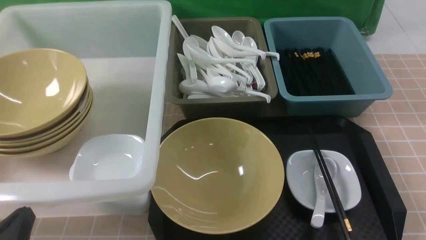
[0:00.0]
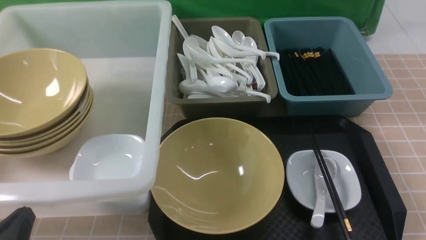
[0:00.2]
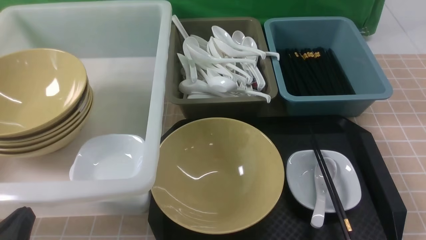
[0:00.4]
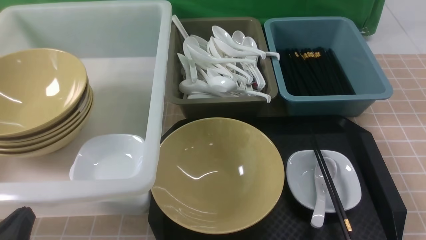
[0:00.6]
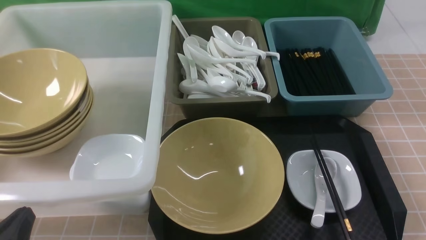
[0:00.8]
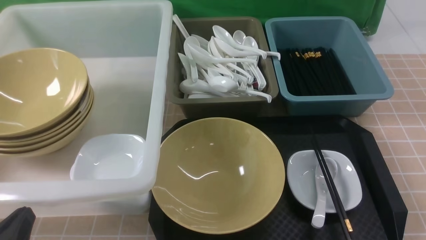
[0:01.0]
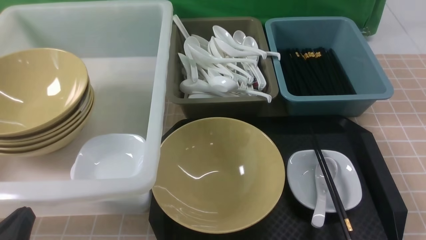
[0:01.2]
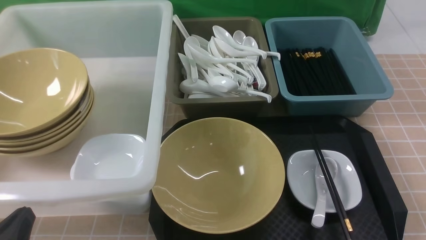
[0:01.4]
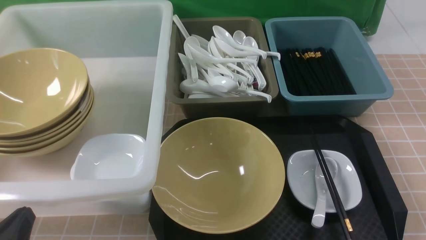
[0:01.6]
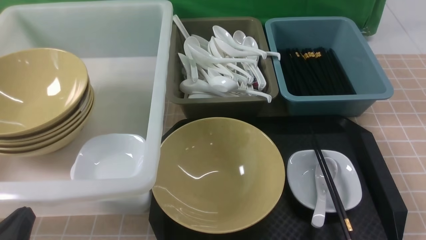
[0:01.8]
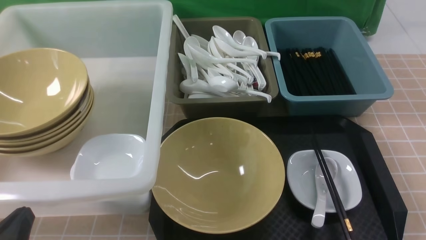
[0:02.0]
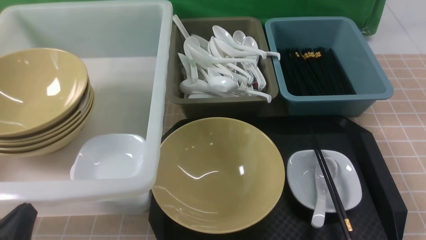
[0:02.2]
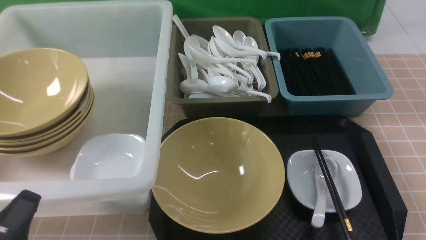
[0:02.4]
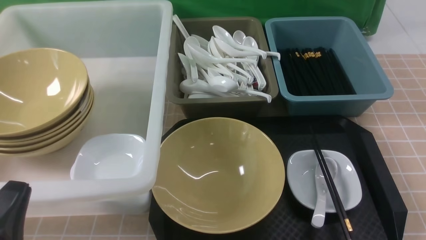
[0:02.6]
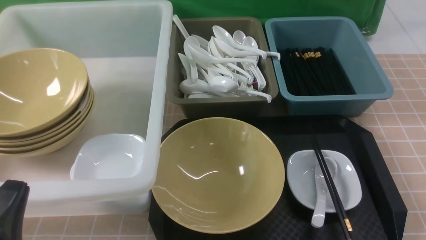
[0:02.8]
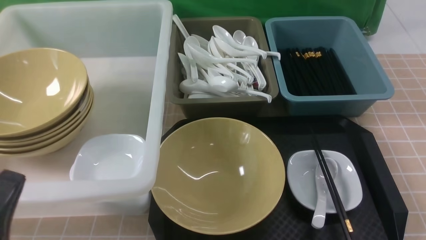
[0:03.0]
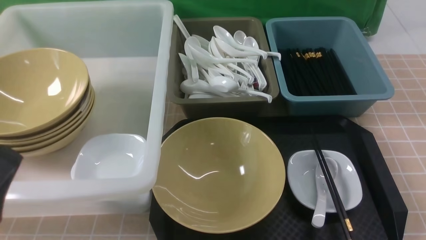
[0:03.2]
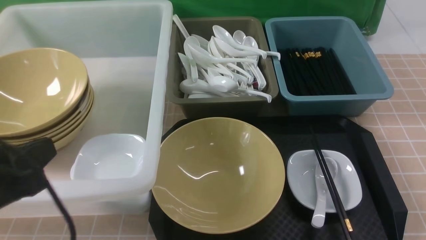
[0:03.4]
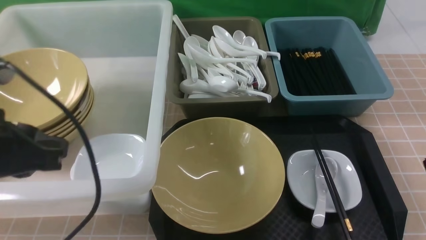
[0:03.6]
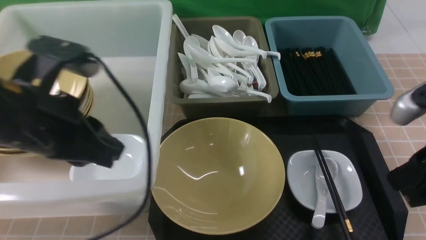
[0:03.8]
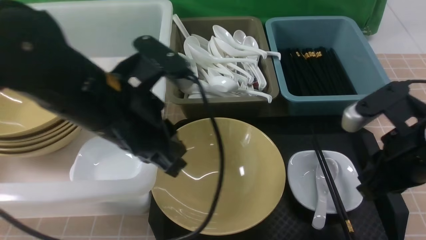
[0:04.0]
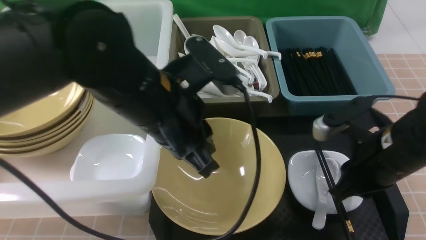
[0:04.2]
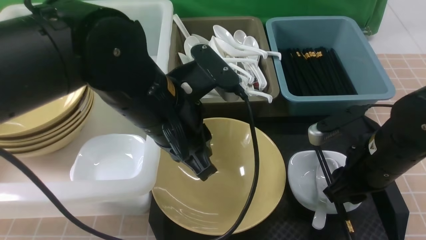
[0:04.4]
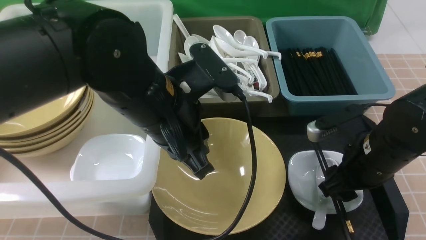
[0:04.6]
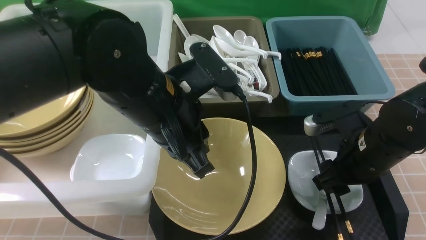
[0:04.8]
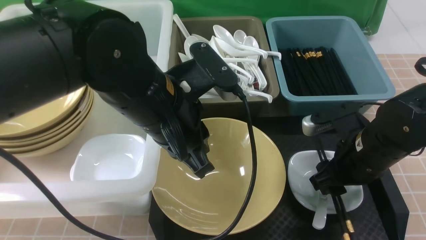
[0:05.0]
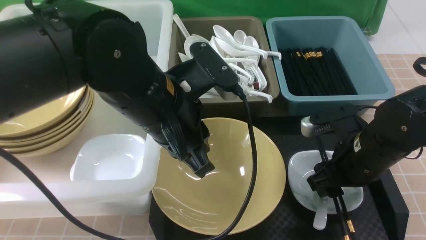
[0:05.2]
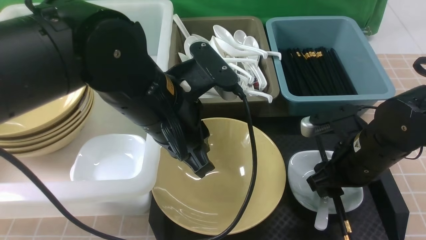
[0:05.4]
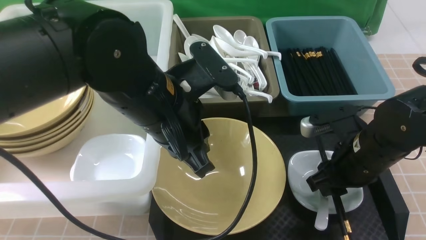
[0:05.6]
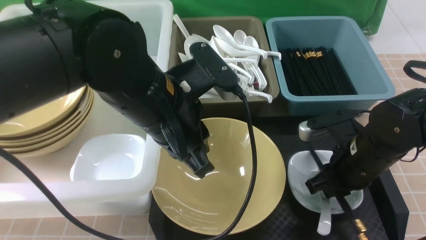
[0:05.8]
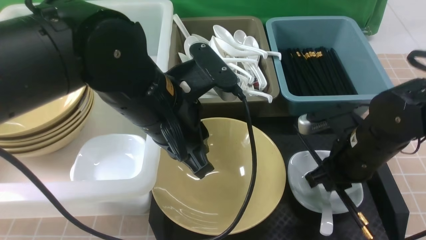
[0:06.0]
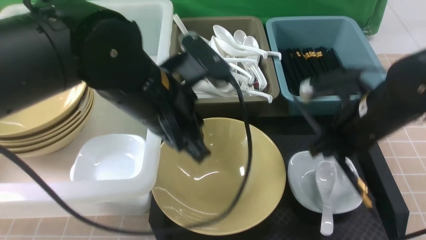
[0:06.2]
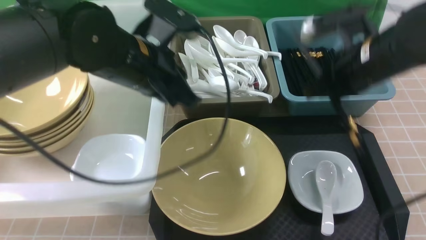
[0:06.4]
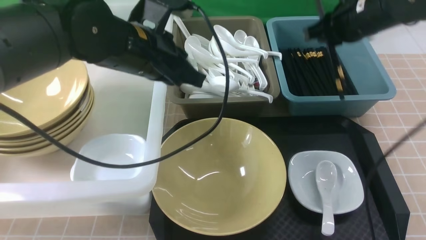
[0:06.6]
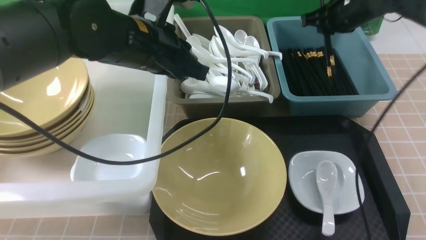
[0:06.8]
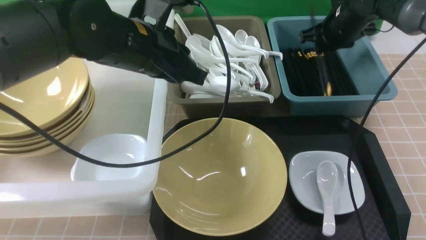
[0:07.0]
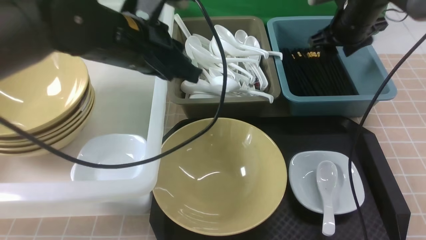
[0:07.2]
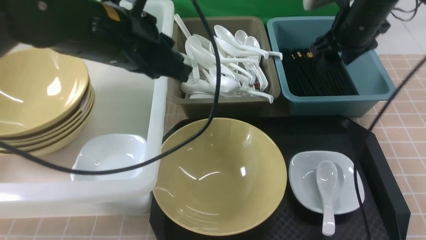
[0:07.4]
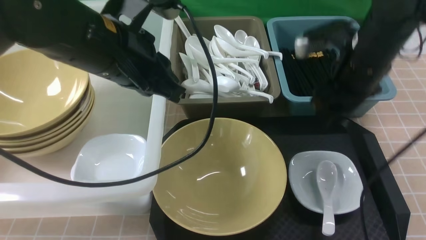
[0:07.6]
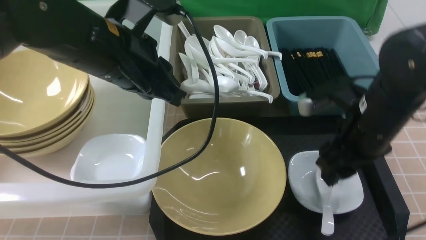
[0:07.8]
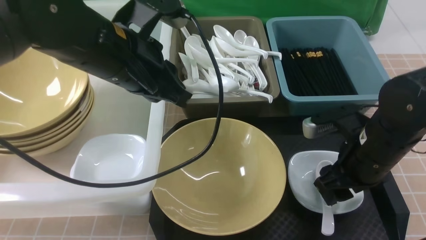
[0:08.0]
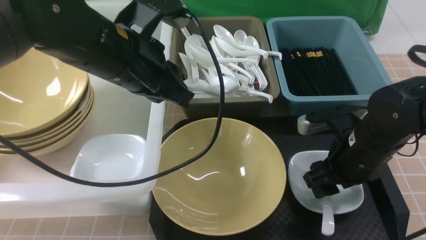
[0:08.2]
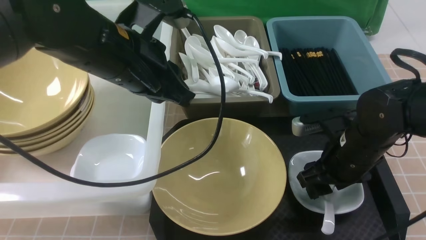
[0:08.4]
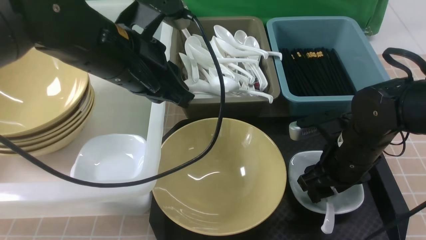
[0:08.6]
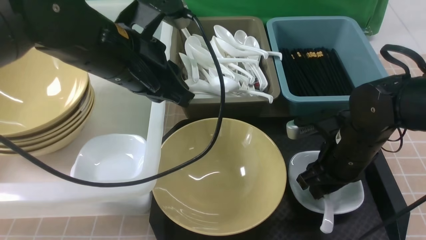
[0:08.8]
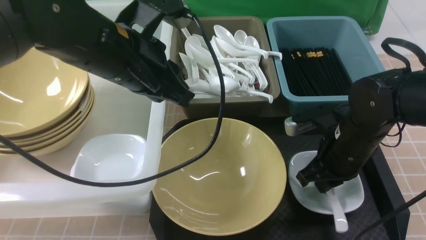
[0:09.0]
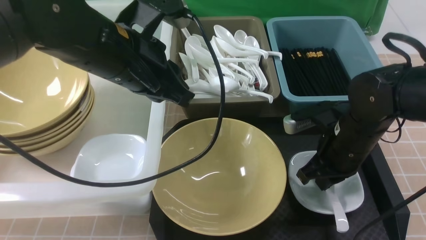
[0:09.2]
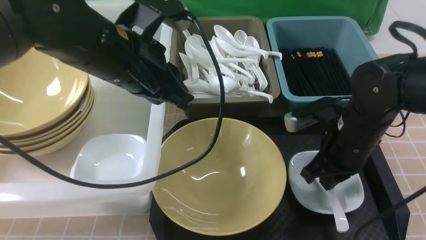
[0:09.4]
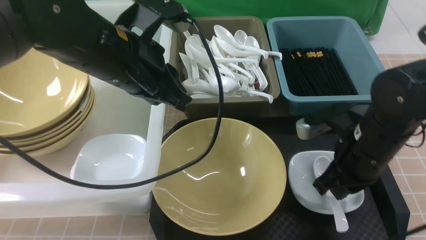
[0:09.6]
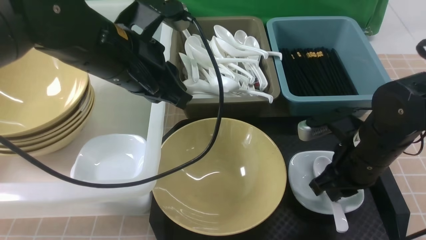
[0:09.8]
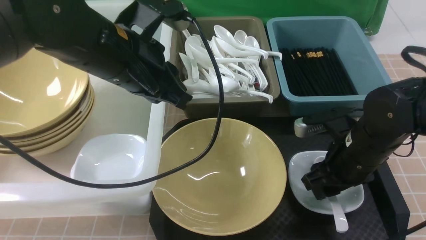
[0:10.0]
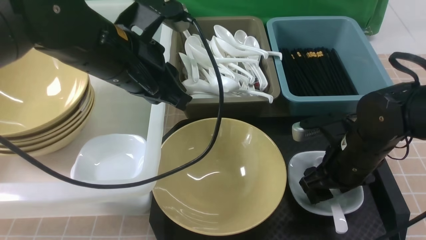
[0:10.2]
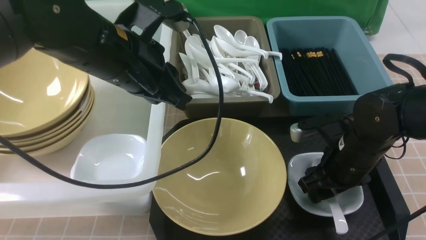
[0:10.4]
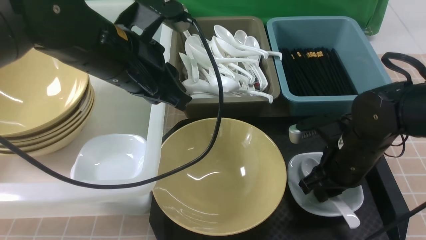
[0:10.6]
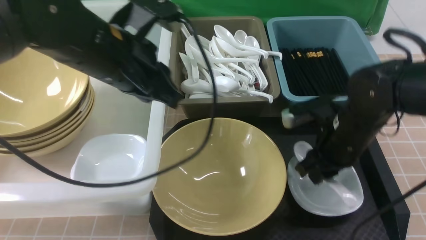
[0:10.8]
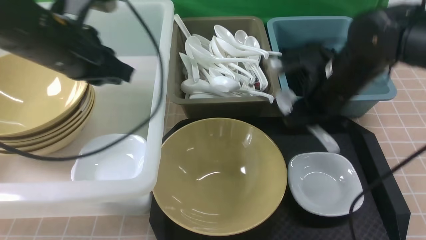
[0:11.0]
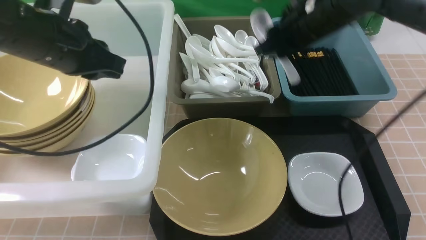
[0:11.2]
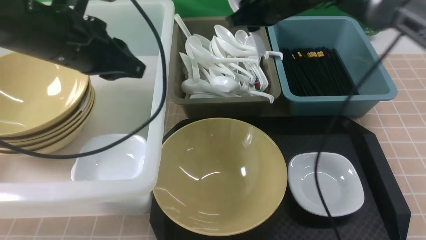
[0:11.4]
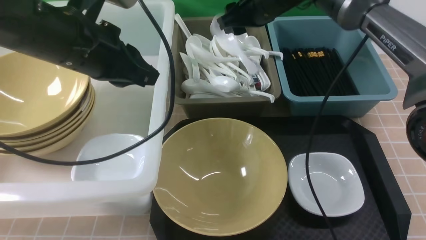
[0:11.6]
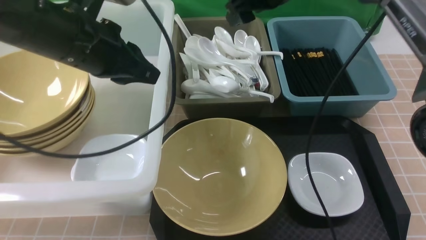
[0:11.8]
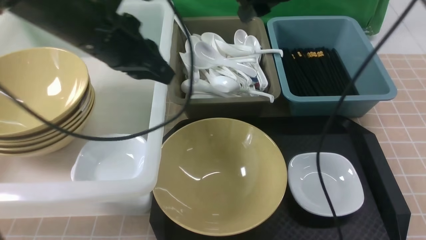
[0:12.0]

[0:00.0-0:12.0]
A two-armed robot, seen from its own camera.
Task of the whole recording: on brown table put chopsticks spoon bowls plates into blue grey white boxes.
Step, 0:00.0 to 0:06.4: use the right arm to grab the chopsticks.
Step, 0:06.6 to 0:07.4: use the right arm to put the chopsticks into the small storage box on the right.
Step, 0:07.6 to 0:10.8: use the right arm to grab the soup spoon in the middle.
Step, 0:11.0 to 0:11.8: use the right arm to put the soup spoon into the small storage box in the middle.
0:00.0 to 0:01.6: Both grippers stay about where they are.
0:01.6 to 0:03.0: The left gripper goes about 5 cm upward.
0:03.0 to 0:04.4: The right gripper goes some 20 cm forward and to the left; the left gripper is displaced forward and to the right by roughly 25 cm.
0:04.4 to 0:06.0: The right gripper closes.
0:06.0 to 0:07.6: The right gripper travels upward by approximately 5 cm, goes forward and returns, about 20 cm each way, and opens its fingers. The left gripper moves approximately 5 cm.
0:07.6 to 0:09.0: The right gripper travels downward and backward by roughly 10 cm, and closes up.
0:09.0 to 0:10.4: The right gripper opens up.
0:10.4 to 0:12.0: The right gripper heads upward and forward, covering approximately 25 cm, and closes, then reopens; the left gripper goes to the left and returns, roughly 10 cm each way.

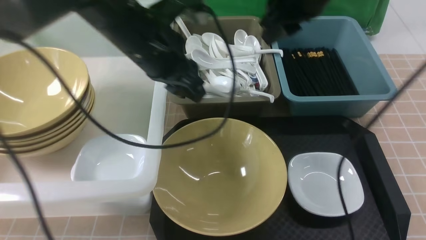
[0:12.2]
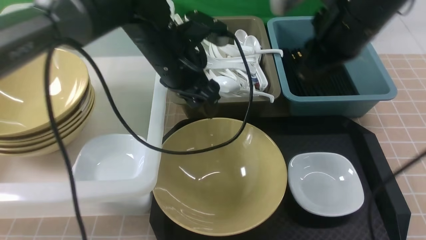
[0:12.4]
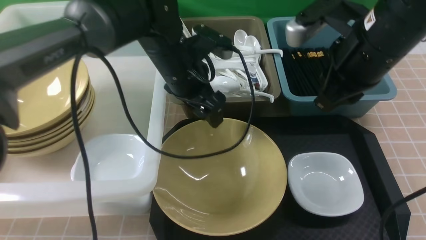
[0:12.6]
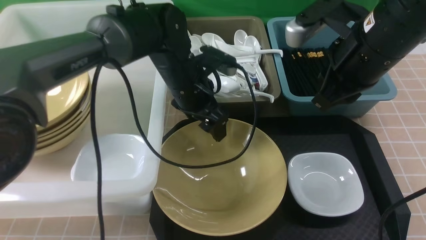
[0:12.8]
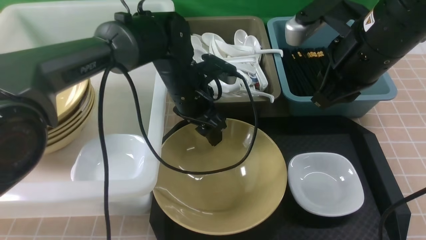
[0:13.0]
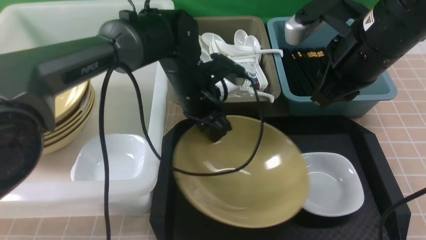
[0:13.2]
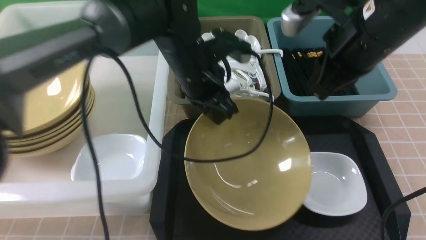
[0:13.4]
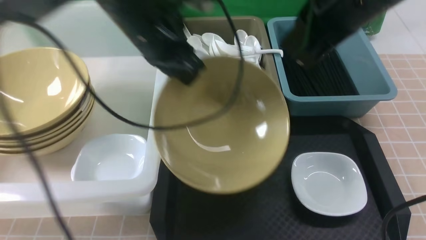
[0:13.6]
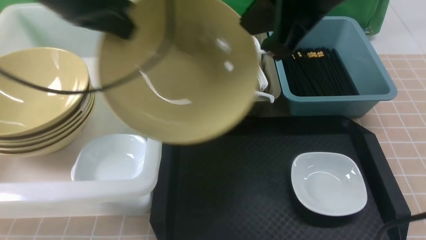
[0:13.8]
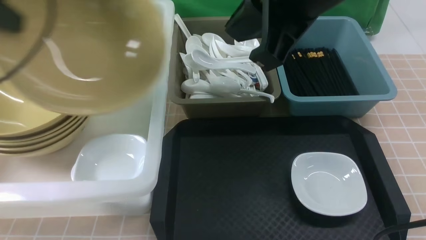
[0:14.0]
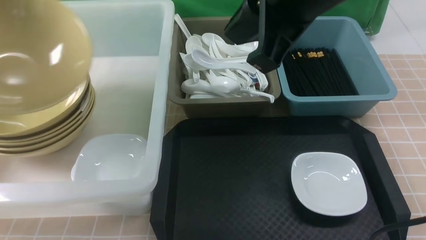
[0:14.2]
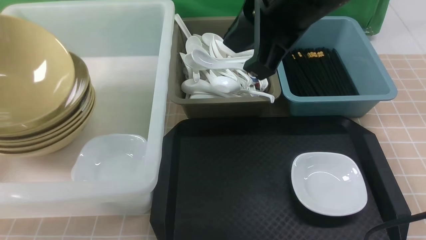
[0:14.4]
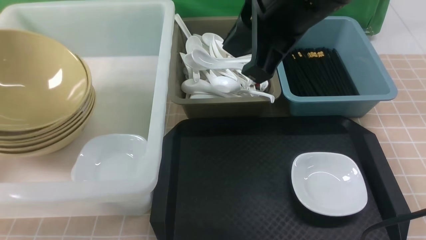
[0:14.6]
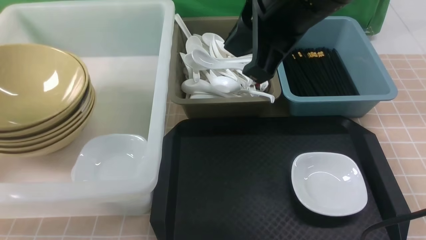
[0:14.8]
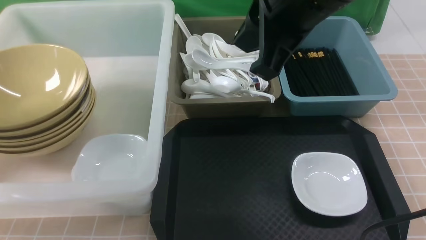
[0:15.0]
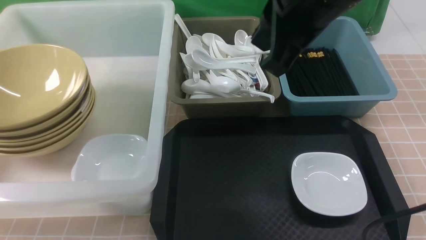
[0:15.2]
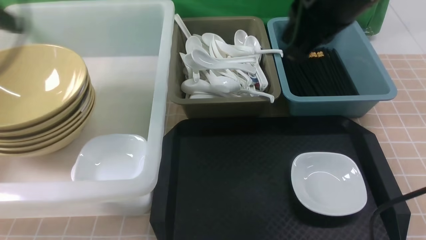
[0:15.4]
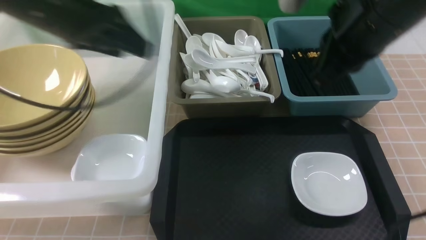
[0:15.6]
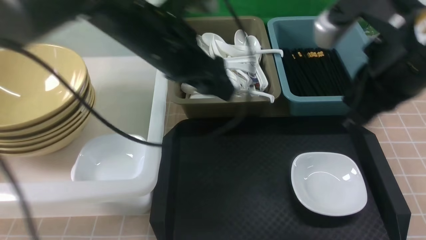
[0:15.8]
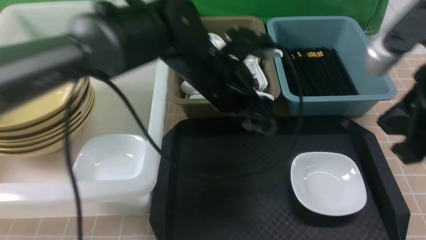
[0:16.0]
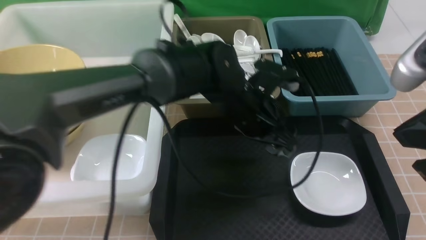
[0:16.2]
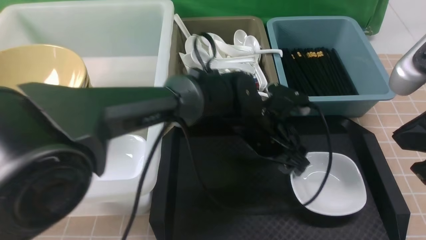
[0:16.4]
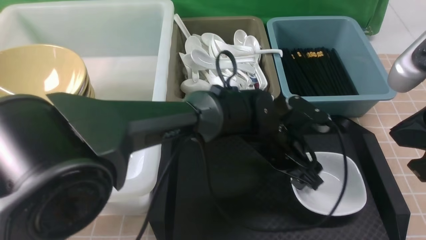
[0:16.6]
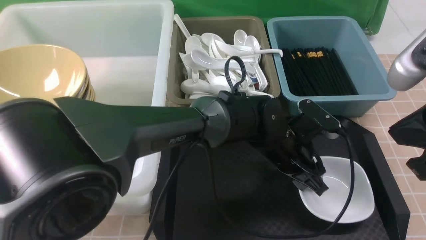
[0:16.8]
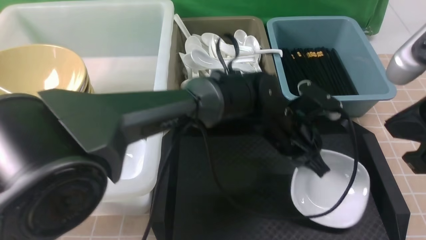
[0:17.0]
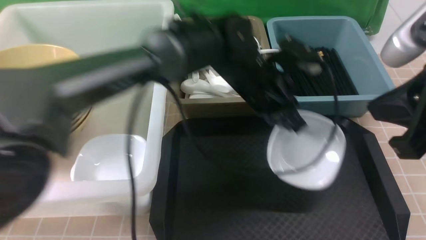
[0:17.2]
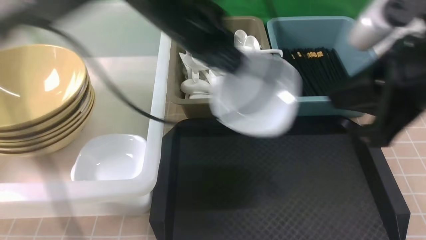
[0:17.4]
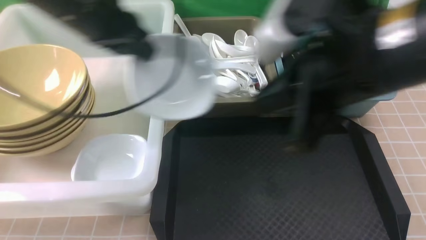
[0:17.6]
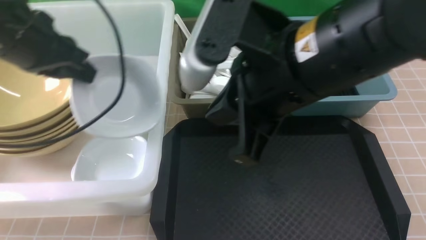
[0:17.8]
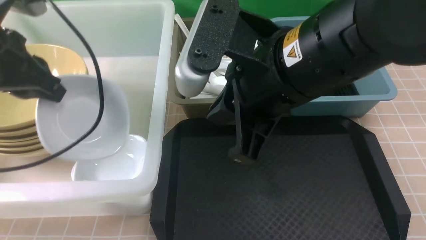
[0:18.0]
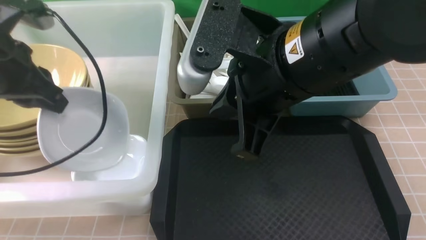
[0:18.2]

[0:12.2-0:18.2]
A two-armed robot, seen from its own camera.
Task of the whole recording: on brown table put chopsticks spoon bowls plates into blue grey white boxes.
Step, 0:12.2 to 0:13.6: use the left arm to grab the yellow noodle bowl on the left.
Step, 0:13.8 to 0:15.2: use the left arm to put the noodle bowl into the large storage box on the left.
Step, 0:15.4 to 0:17.0: use the left arm to grab the plate.
0:12.2 to 0:13.8: The right gripper goes approximately 15 cm backward and upward, and closes. The left gripper heads to the left and upward, covering approximately 15 cm, and closes up.
0:13.8 to 0:15.2: The left gripper is displaced to the left by approximately 15 cm, and opens its fingers.
0:15.2 to 0:16.6: The left gripper goes roughly 50 cm to the right and downward. Meanwhile the right gripper moves to the right, backward and downward, about 15 cm.
0:16.6 to 0:18.2: The right gripper travels to the left by some 15 cm, while the left gripper travels to the left and upward by some 40 cm, and closes up.
